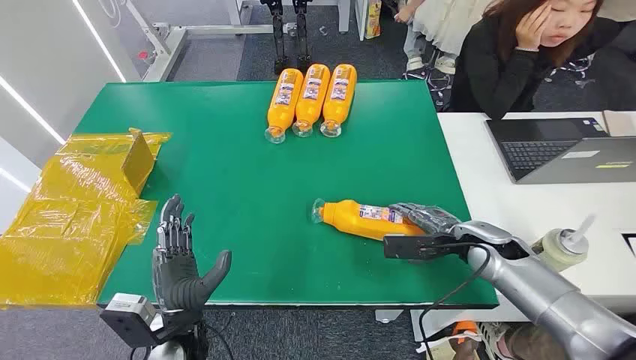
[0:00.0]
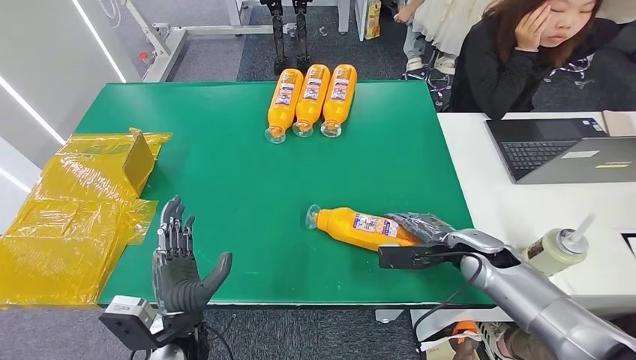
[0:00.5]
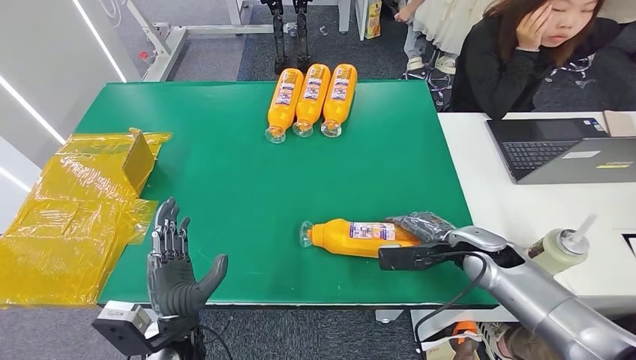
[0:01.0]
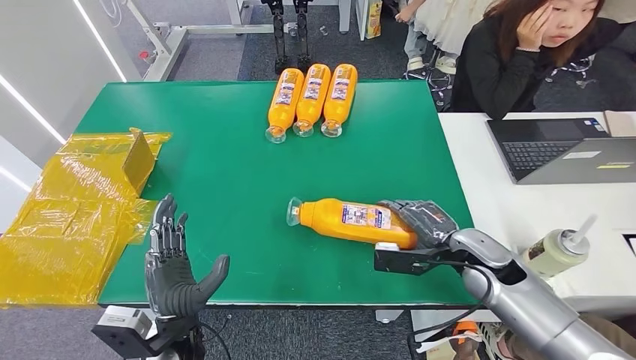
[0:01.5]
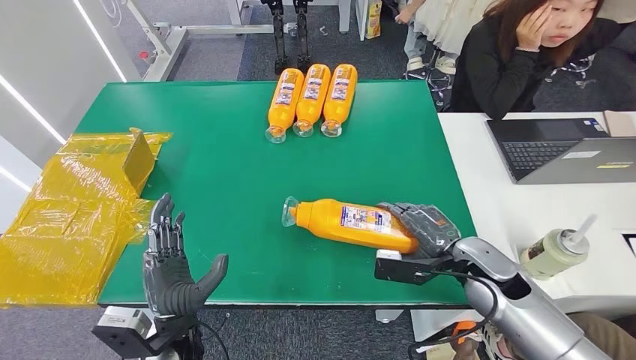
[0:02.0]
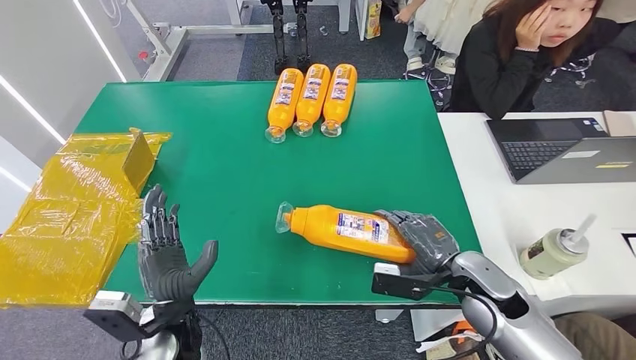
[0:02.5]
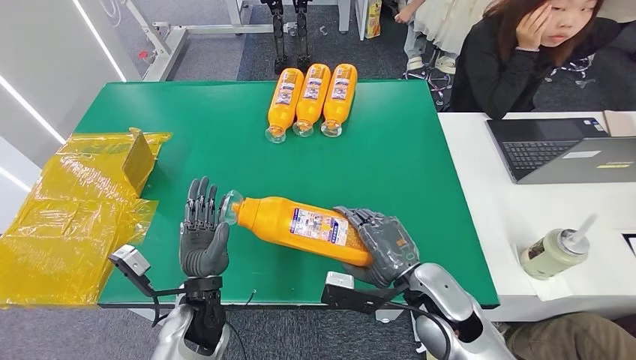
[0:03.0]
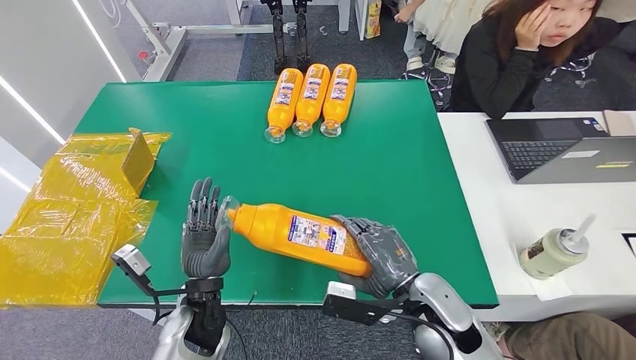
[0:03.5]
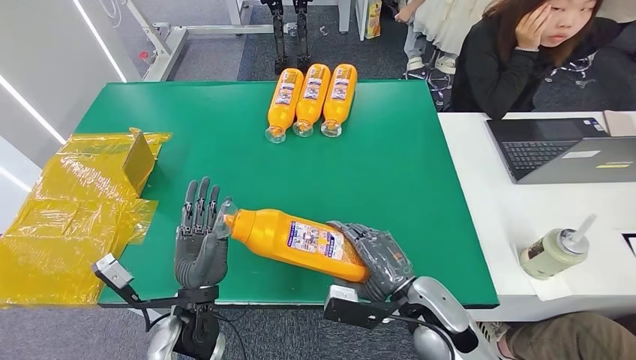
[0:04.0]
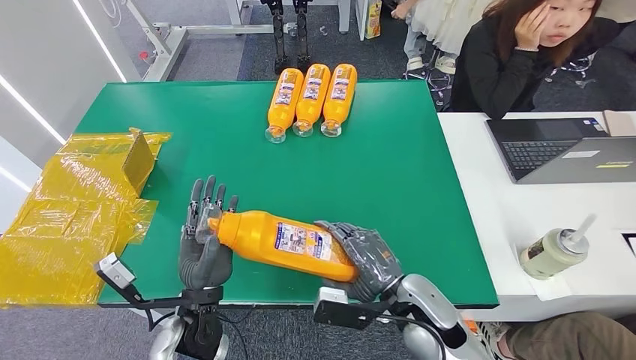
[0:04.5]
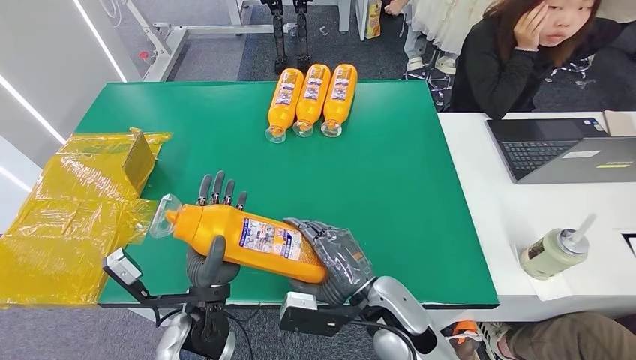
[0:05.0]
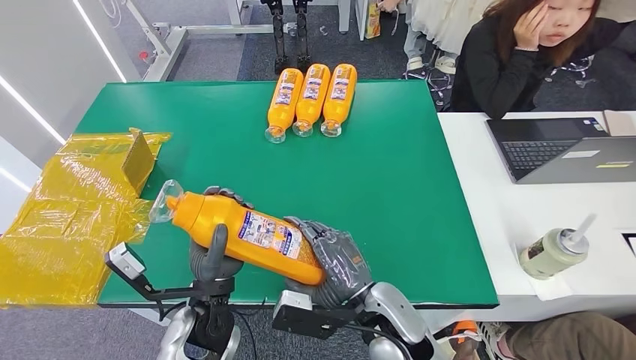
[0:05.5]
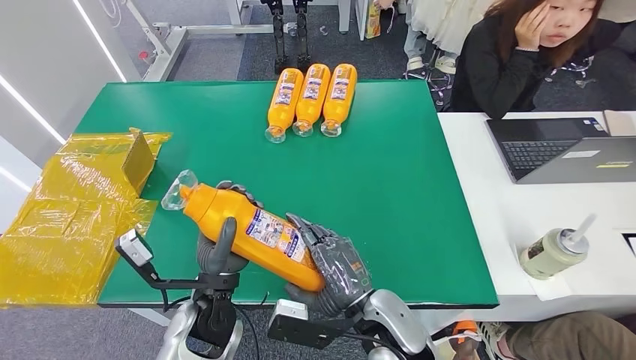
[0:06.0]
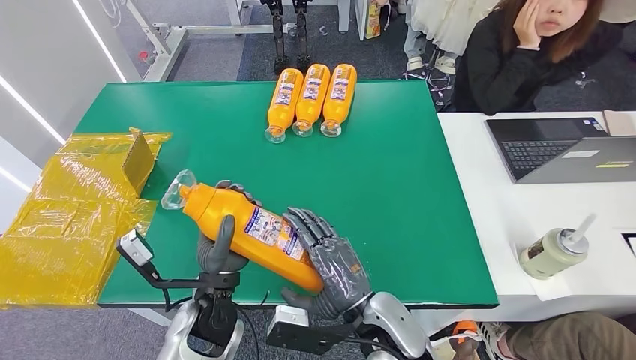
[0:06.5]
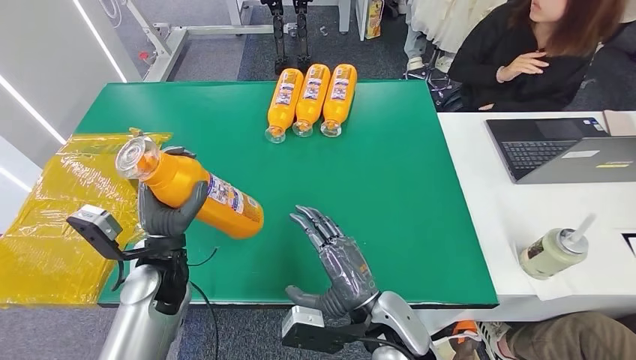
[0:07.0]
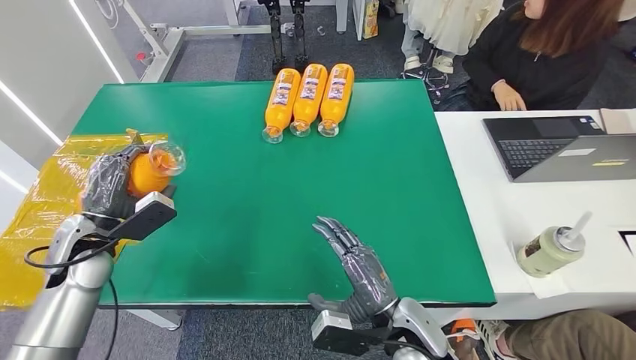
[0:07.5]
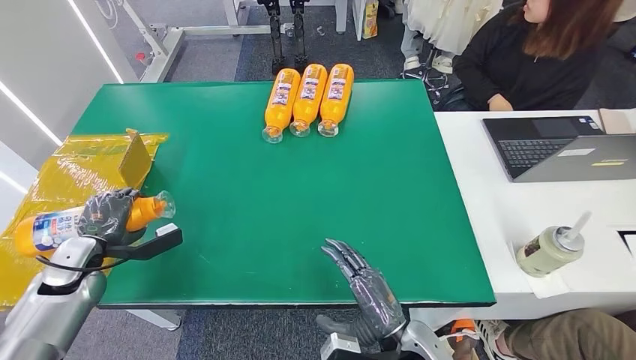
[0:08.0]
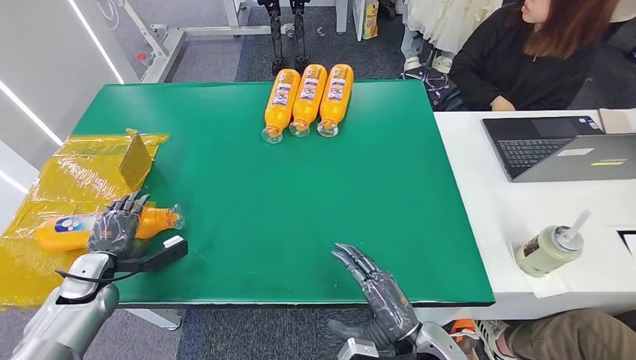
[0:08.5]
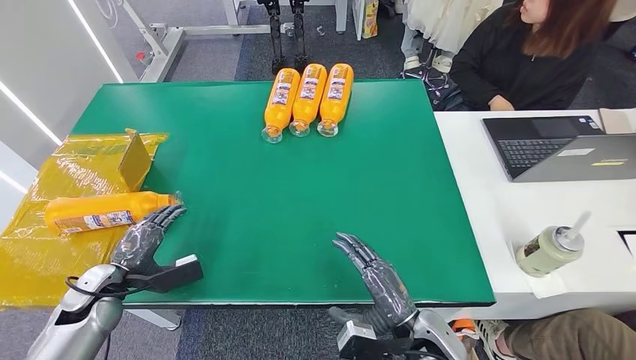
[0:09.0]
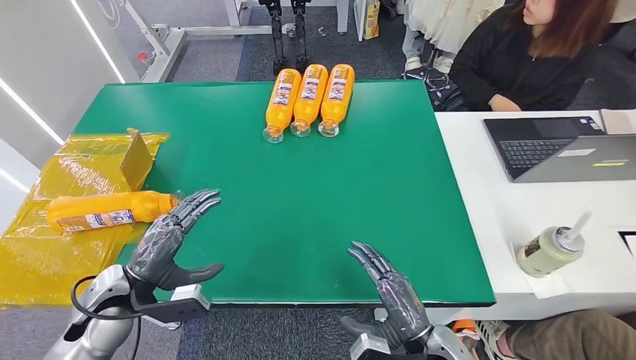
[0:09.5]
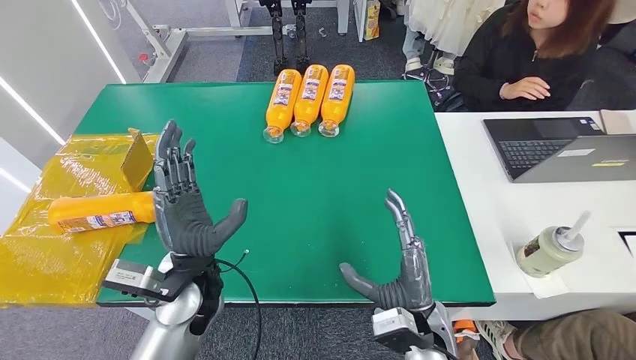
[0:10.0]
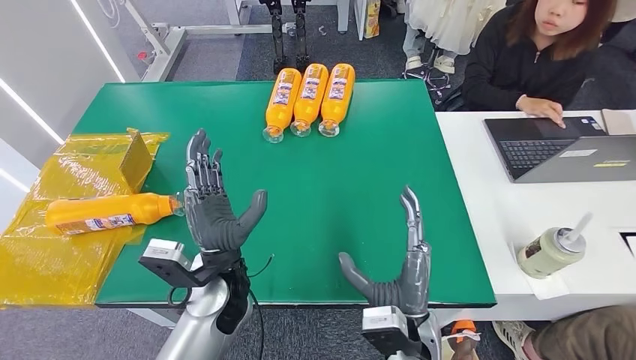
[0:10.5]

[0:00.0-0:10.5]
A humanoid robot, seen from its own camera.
Step, 0:00.0 to 0:03.0: Pick up the bottle from the table.
Step, 0:03.5 to 0:10.5: Turn the bottle to the front side.
0:02.0 to 0:04.0: The right hand travels to the left and backward by some 15 cm.
0:04.0 to 0:06.5: The right hand moves to the left, approximately 10 cm.
